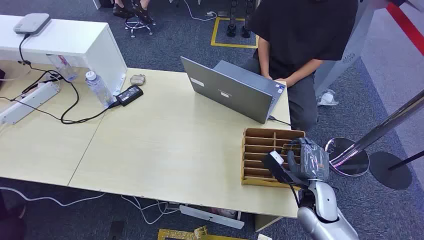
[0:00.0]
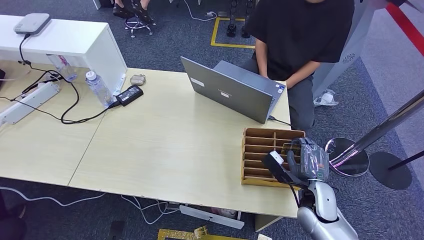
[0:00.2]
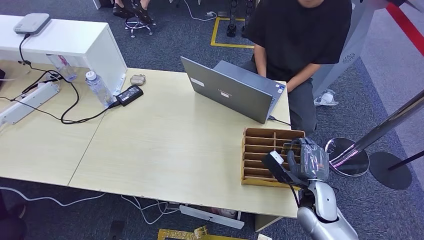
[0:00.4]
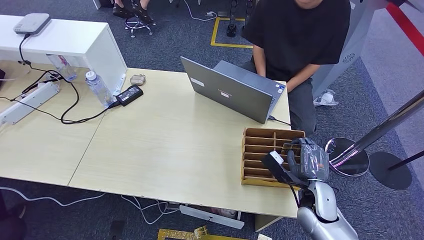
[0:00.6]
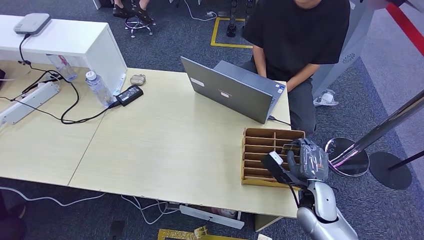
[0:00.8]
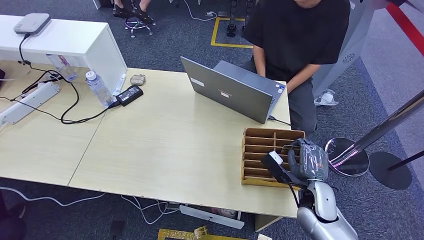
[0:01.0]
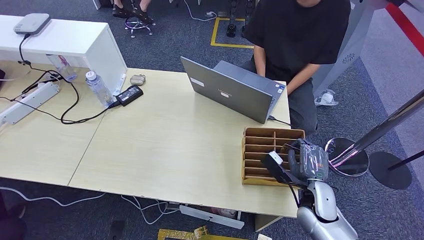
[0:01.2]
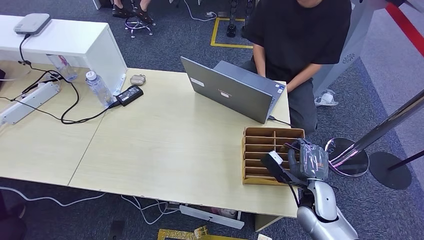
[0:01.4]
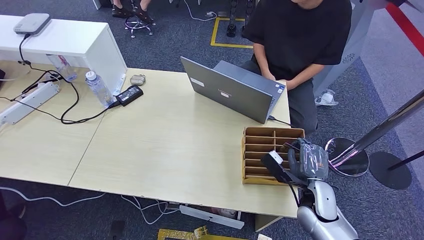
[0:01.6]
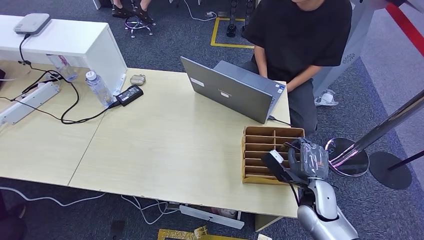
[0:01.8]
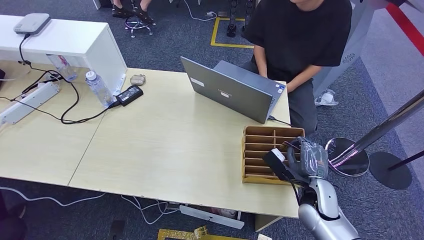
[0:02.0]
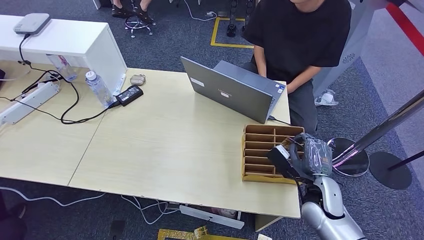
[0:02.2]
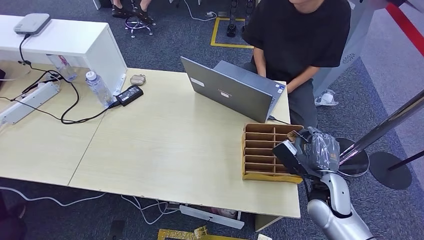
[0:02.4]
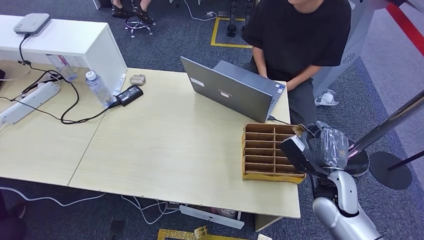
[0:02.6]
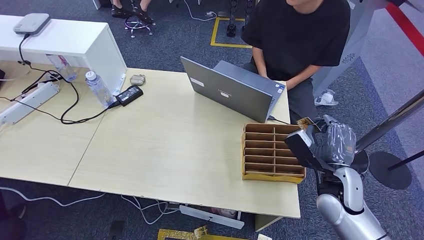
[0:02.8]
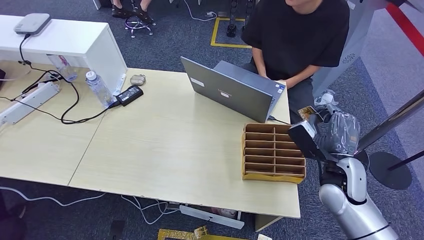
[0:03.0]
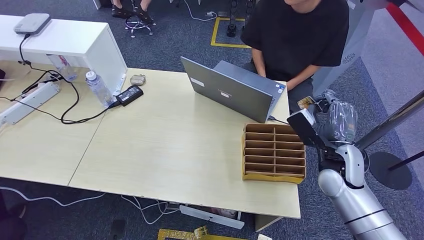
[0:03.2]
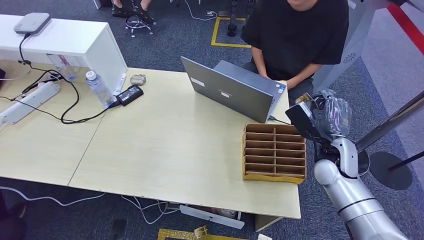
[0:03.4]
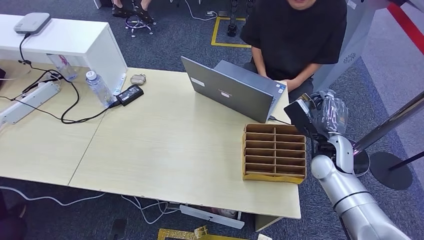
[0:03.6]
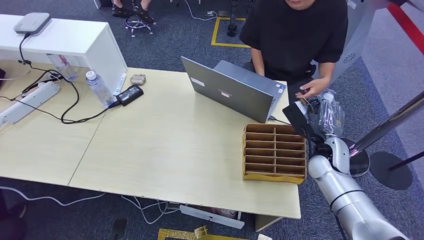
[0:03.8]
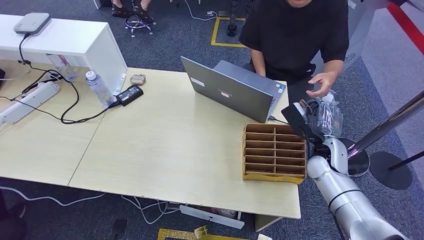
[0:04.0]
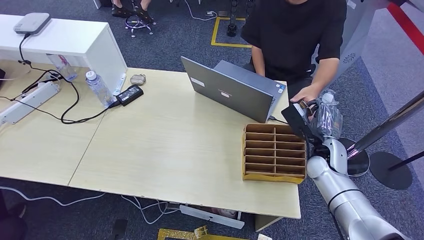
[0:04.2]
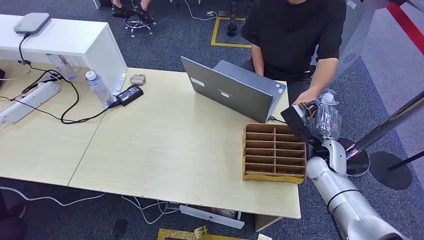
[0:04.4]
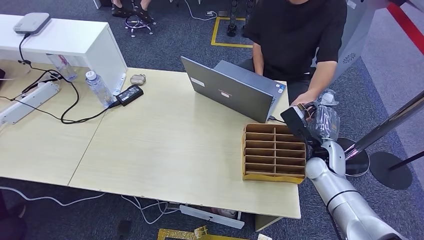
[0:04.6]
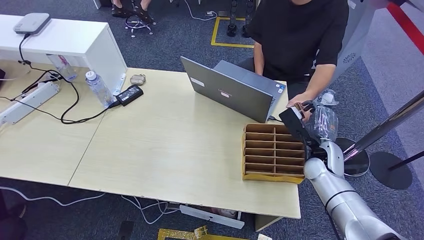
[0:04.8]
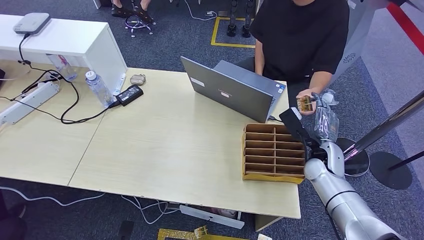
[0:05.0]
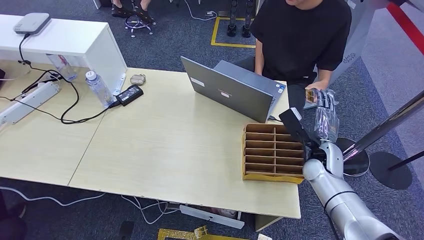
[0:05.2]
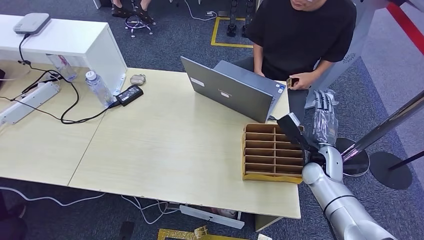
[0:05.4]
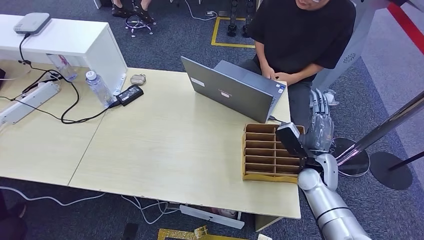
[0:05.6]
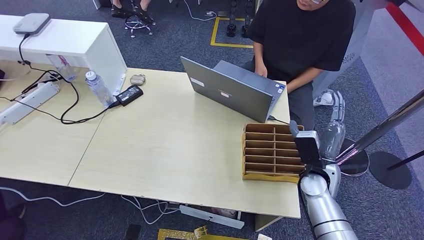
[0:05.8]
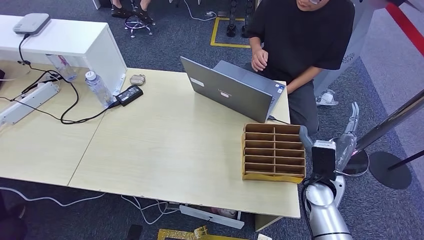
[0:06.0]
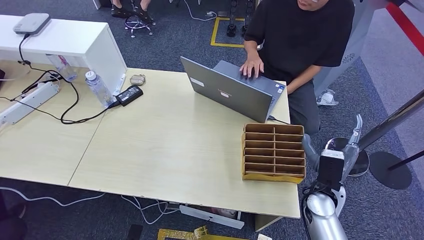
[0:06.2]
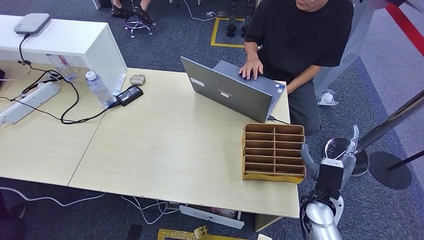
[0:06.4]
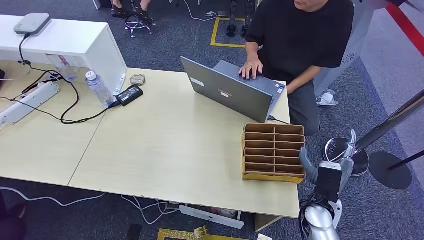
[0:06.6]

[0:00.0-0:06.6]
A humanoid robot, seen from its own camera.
Step, 0:00.0 to 0:02.8: Pick up the room card from the card holder.
Step, 0:03.0 to 0:06.4: Hand the room card to the target.
0:01.6 to 0:03.2: The right hand travels upward and forward by some 10 cm.
0:03.2 to 0:05.0: The right hand heads downward, covering about 5 cm.
0:05.0 to 0:06.6: The right hand shifts about 15 cm backward and downward.
